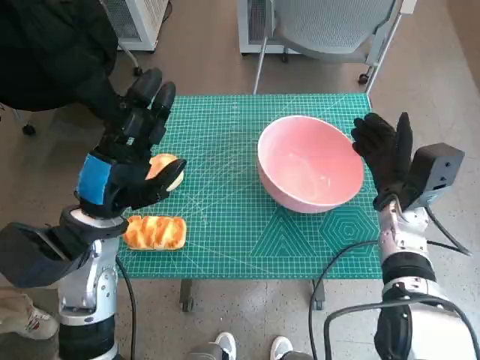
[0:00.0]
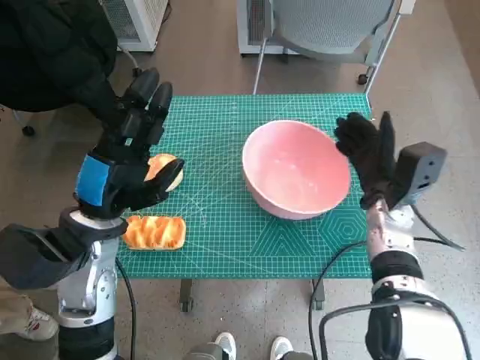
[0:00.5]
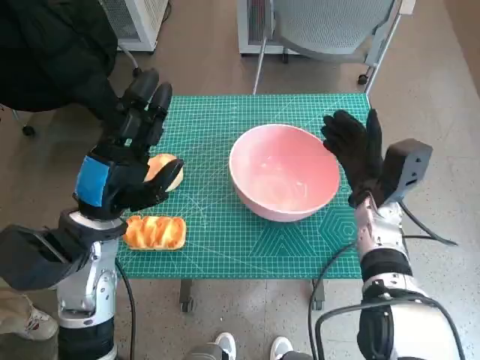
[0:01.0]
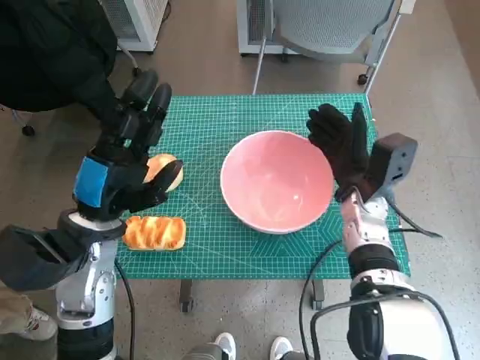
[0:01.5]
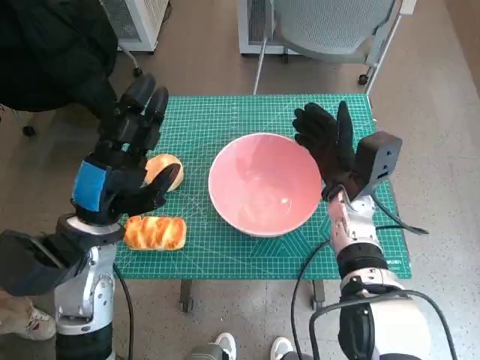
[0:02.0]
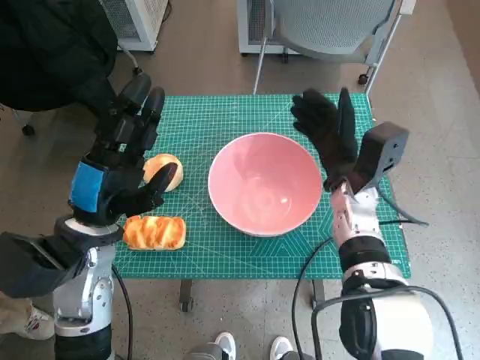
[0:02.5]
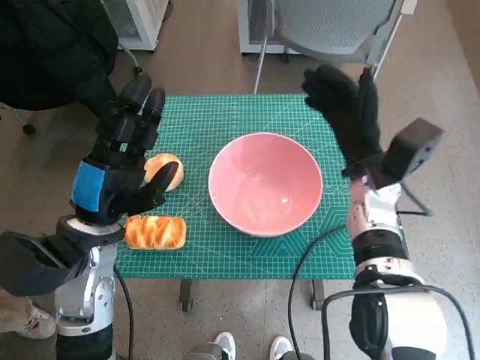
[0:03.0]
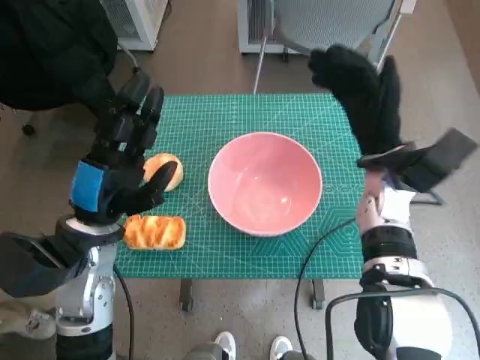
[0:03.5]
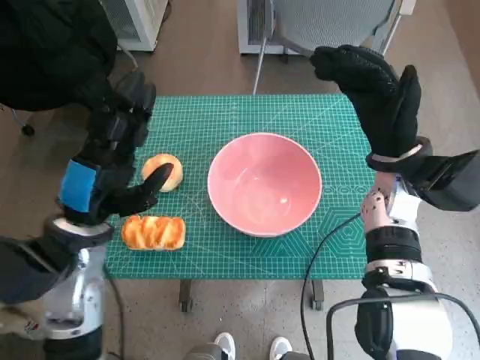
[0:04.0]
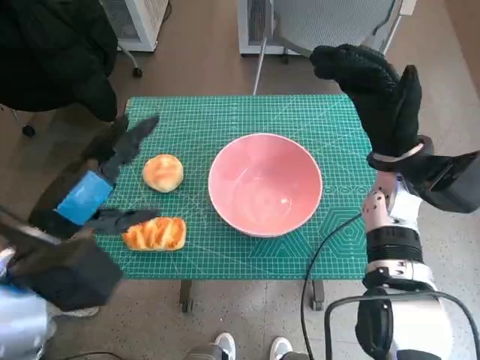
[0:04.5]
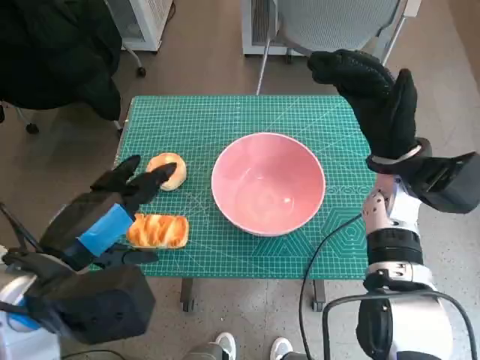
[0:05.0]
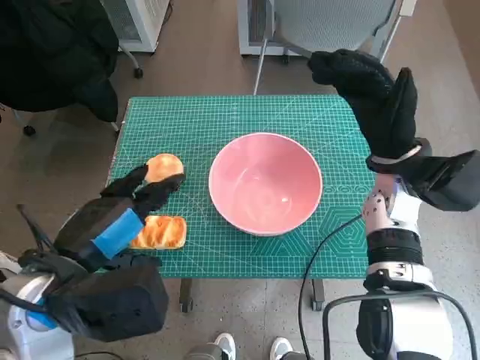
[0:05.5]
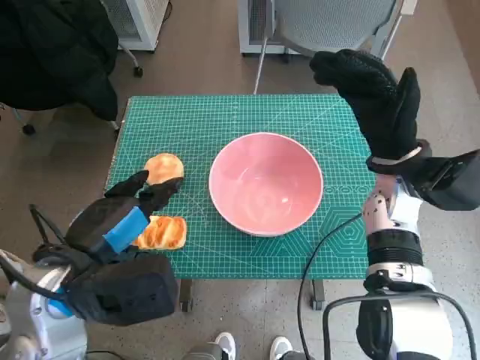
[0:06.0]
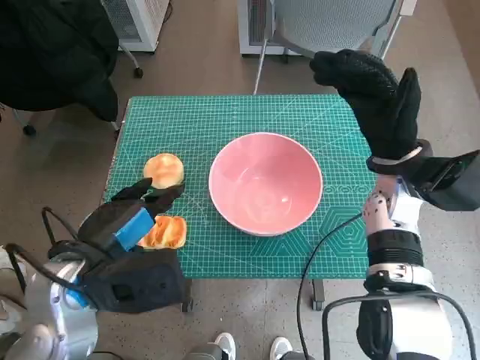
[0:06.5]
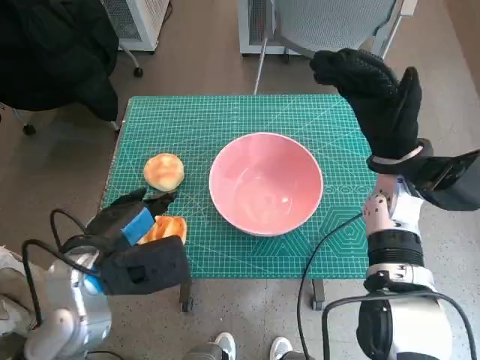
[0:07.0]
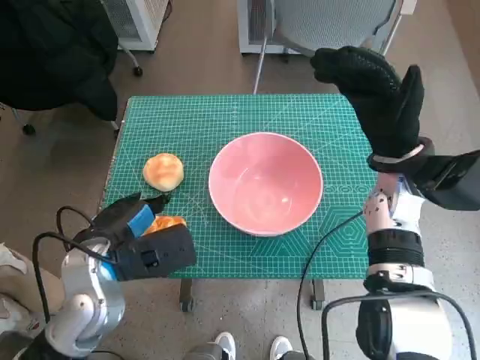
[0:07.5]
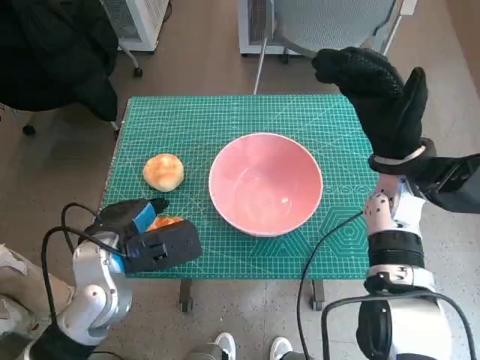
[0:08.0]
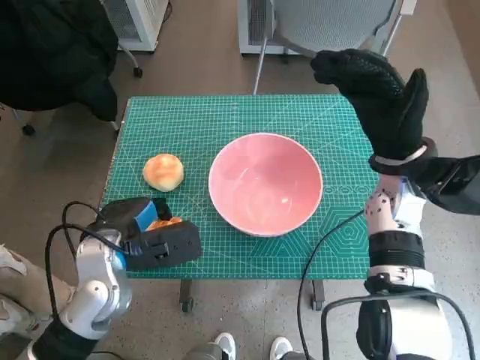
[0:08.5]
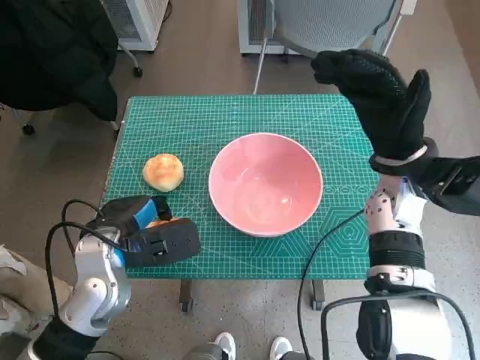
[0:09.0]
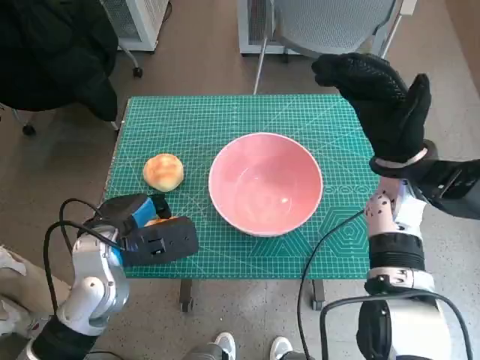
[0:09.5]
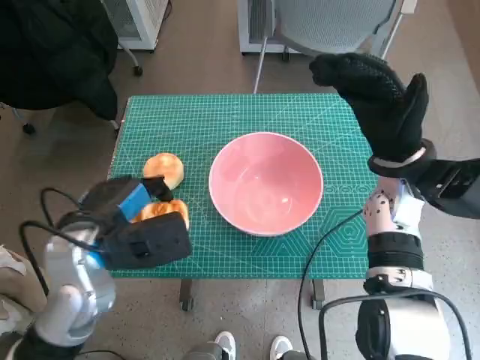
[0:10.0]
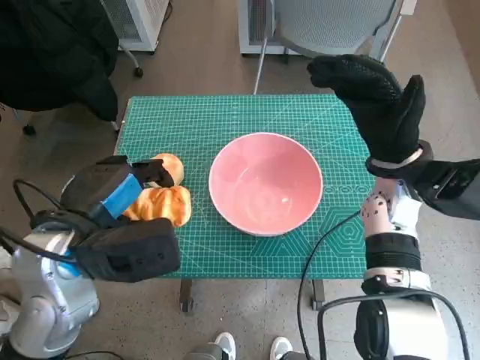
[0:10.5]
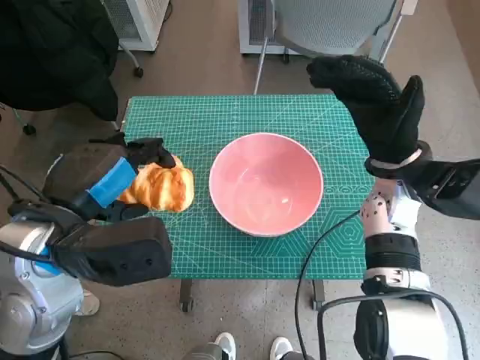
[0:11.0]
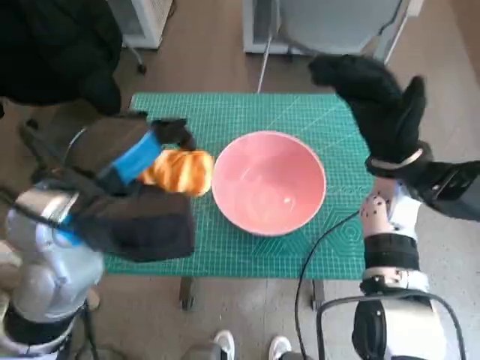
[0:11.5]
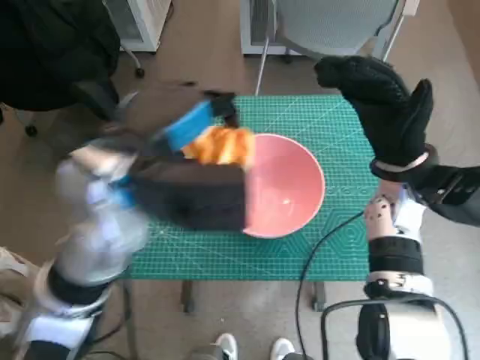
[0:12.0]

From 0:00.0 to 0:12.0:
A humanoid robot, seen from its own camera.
Step, from 0:00.0 to 0:02.5: Move the pink bowl to the center of table with right hand.
Step, from 0:03.0 to 0:09.0: Grasp the long bread with left hand.
From 0:00.0 to 0:02.0: The right hand heads to the left, covering some 10 cm.
From 0:02.0 to 0:04.0: The right hand is displaced upward by about 10 cm.
From 0:04.0 to 0:06.0: The left hand goes roughly 5 cm backward.
From 0:06.0 to 0:08.0: The left hand goes about 10 cm downward and forward.
From 0:08.0 to 0:10.0: There are only small adjustments of the hands.
From 0:10.0 to 0:12.0: The left hand goes about 15 cm upward and to the right.

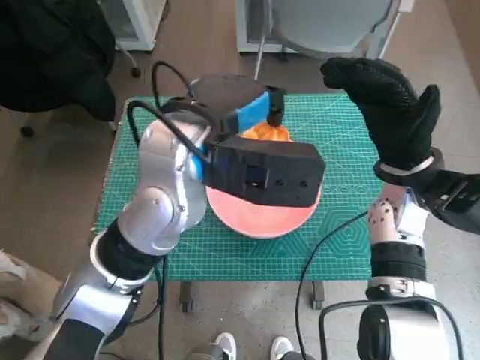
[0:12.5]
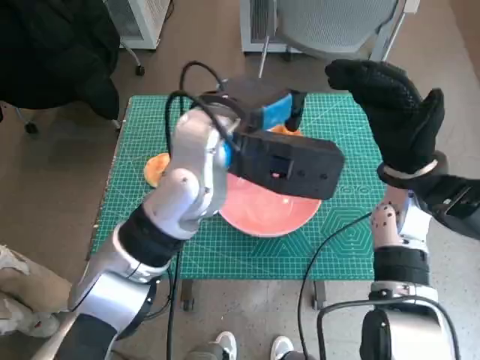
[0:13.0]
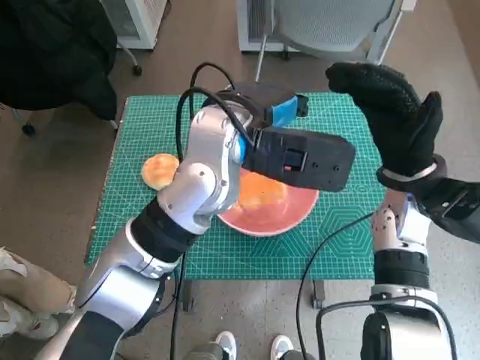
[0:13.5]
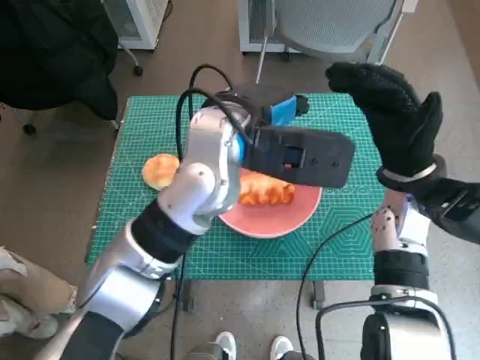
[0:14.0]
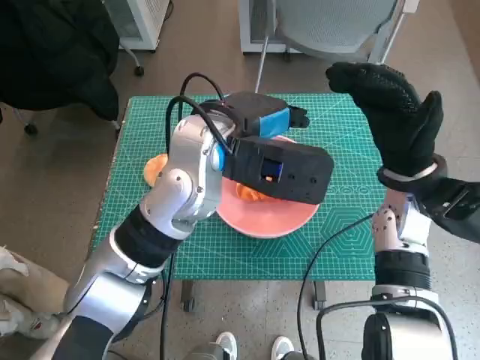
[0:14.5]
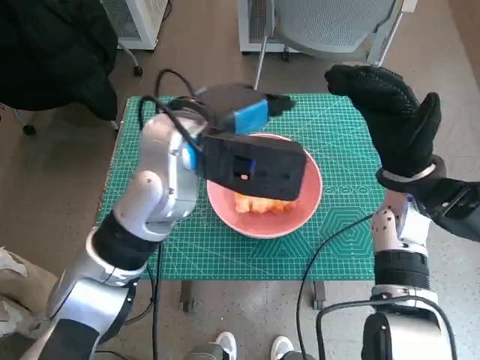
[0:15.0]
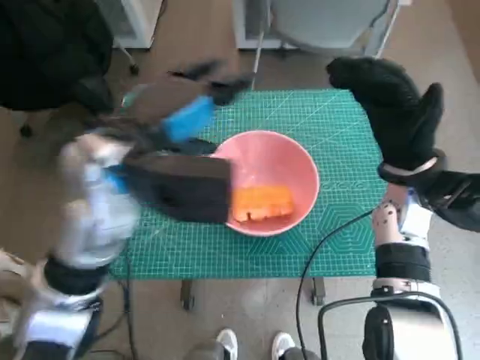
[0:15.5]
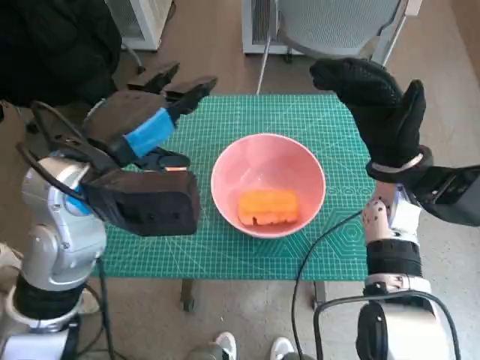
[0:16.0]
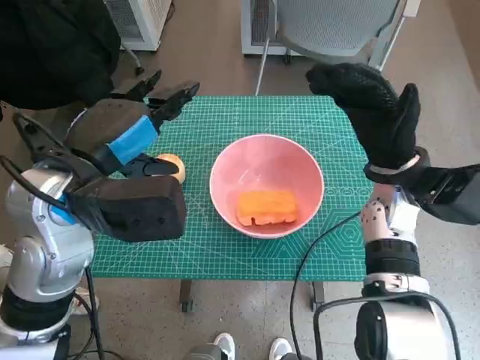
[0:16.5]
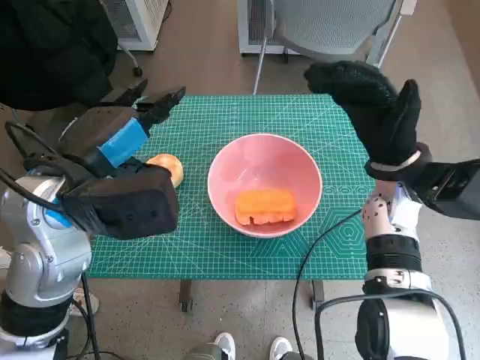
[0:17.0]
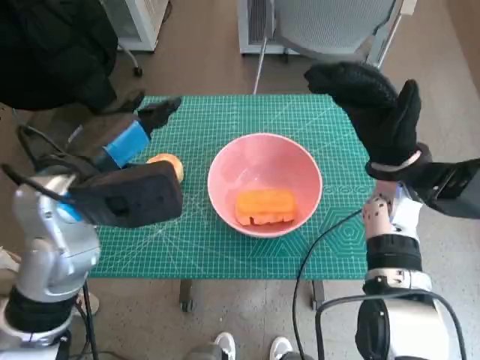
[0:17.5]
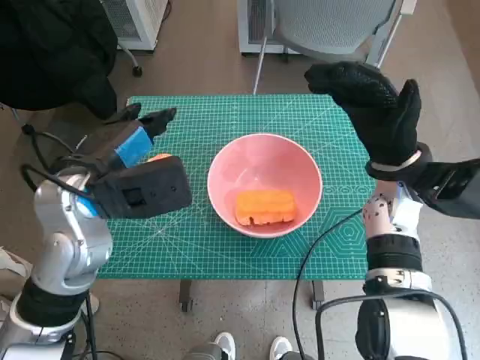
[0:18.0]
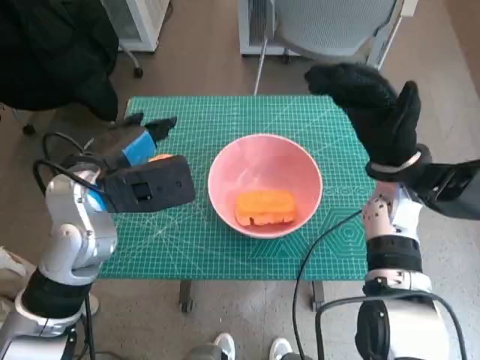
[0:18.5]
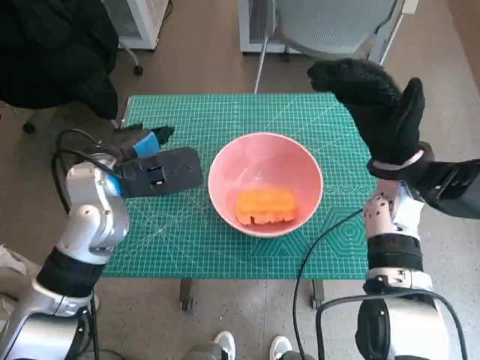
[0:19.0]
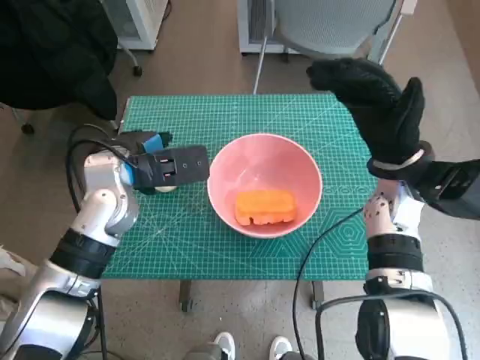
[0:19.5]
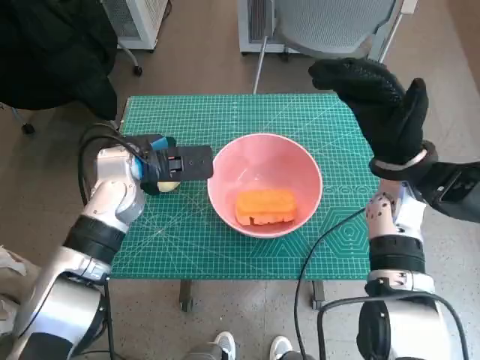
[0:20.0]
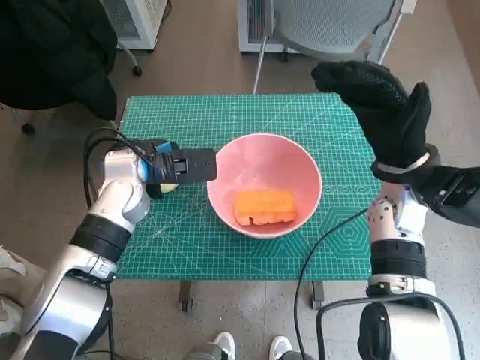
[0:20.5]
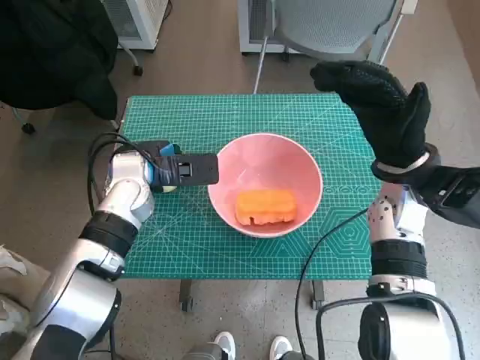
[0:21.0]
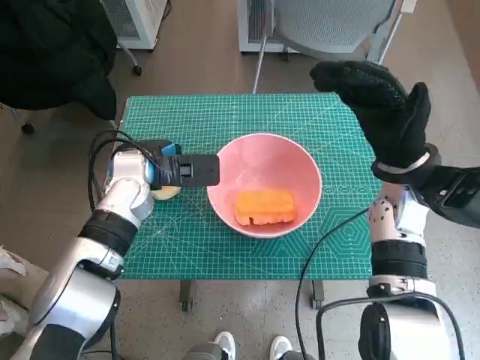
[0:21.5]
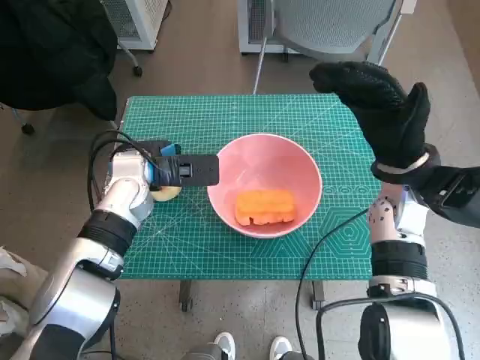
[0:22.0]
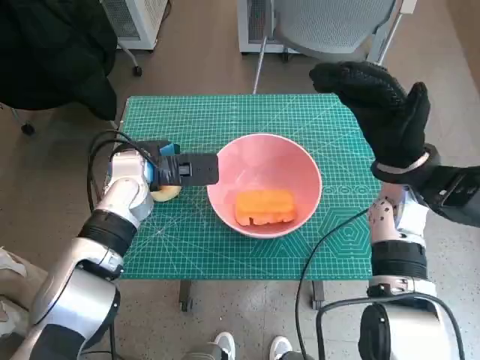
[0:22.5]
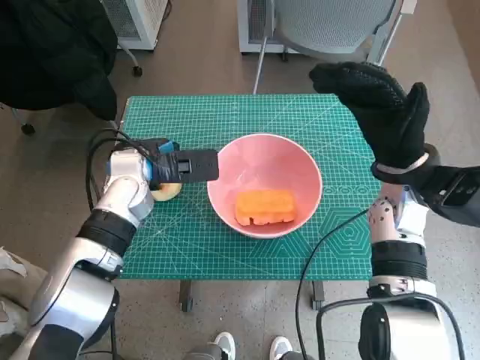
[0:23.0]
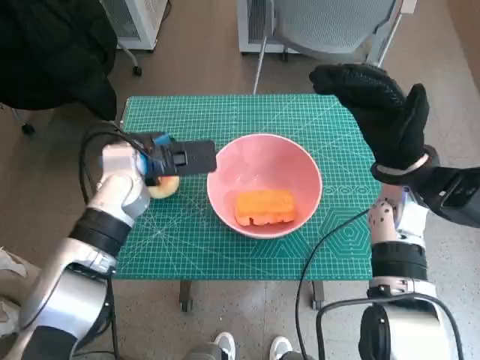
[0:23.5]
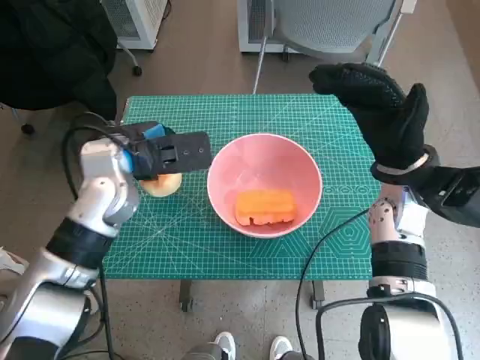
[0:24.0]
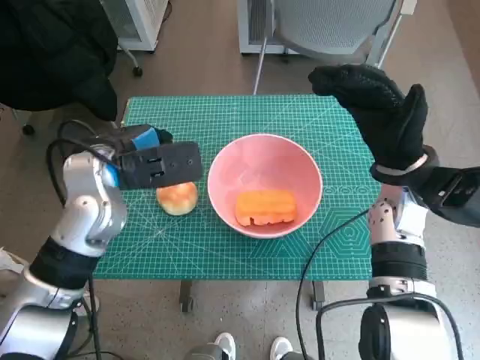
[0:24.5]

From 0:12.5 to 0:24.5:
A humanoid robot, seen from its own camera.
Step, from 0:12.5 to 0:15.0: Place the long bread in pink bowl with left hand.
From 0:14.5 to 0:16.5: The left hand heads to the left and backward, covering roughly 15 cm.
From 0:16.5 to 0:18.5: The left hand ends up approximately 5 cm from where it was.
From 0:18.5 to 0:20.5: The left hand goes some 10 cm forward and downward.
From 0:20.5 to 0:22.5: There are only small adjustments of the hands.
From 0:22.5 to 0:24.5: The left hand goes approximately 5 cm upward.

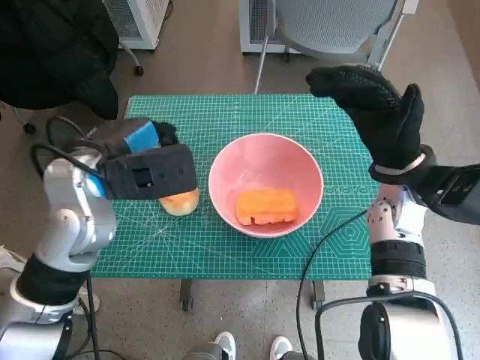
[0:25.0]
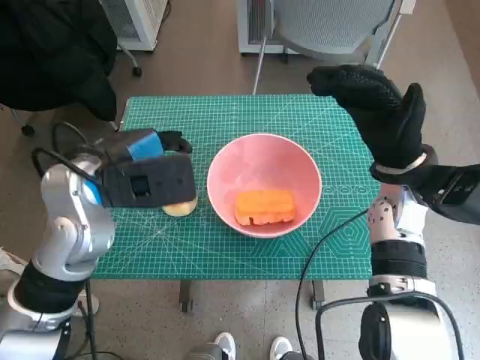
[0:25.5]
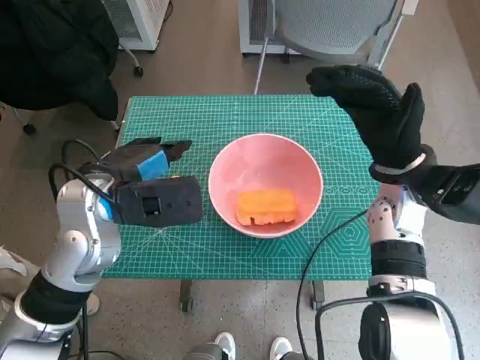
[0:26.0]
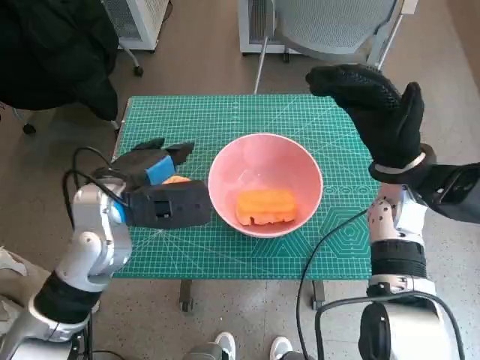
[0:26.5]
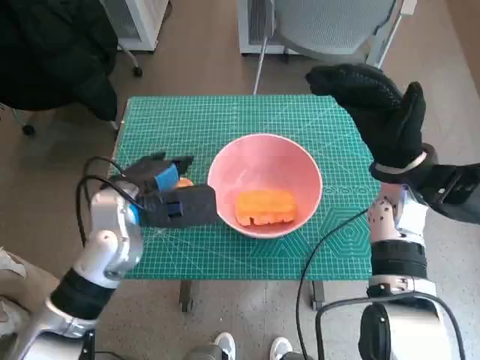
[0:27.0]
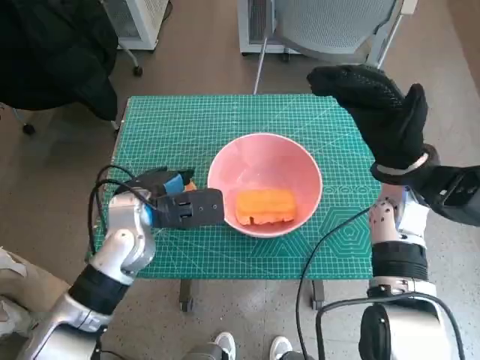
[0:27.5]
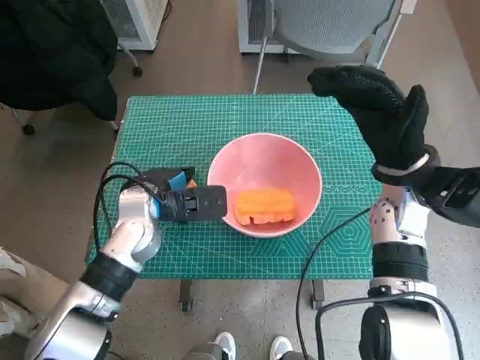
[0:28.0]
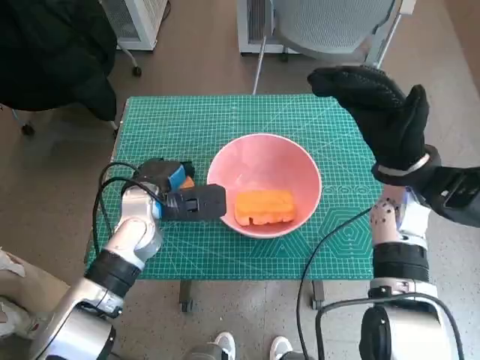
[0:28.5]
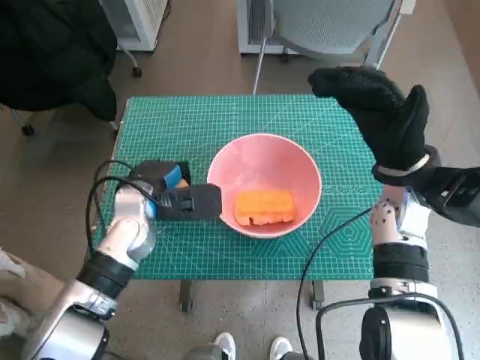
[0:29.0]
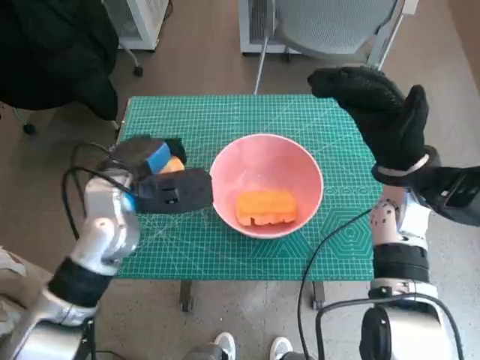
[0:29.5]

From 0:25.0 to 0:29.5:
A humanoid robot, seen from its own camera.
Step, from 0:25.0 to 0:28.5: Grasp the round bread with left hand.
From 0:25.0 to 0:27.0: The left hand goes some 5 cm downward.
